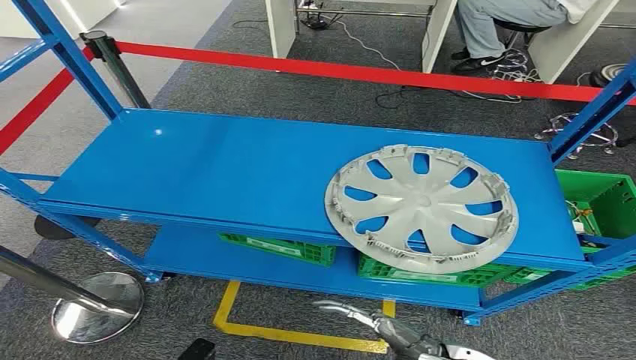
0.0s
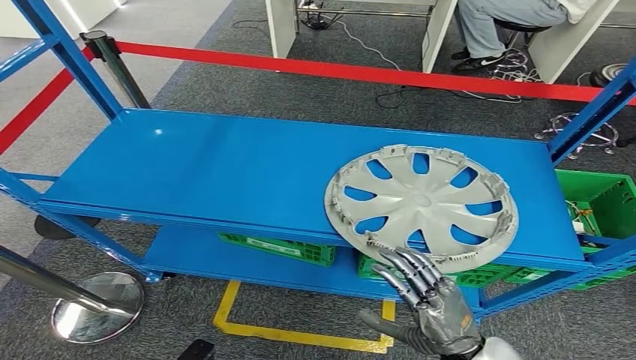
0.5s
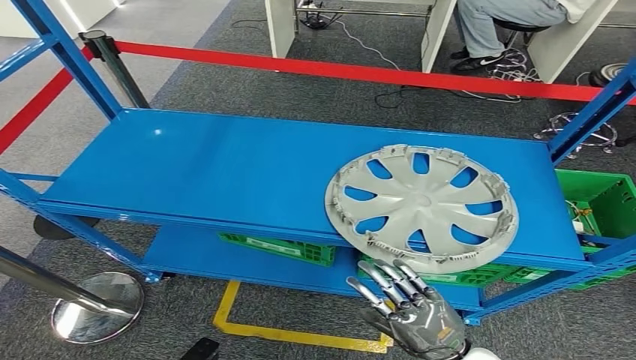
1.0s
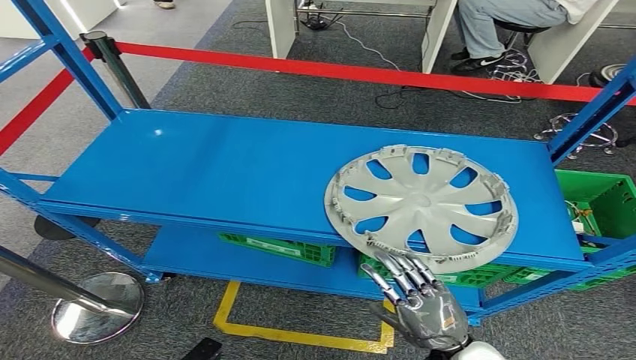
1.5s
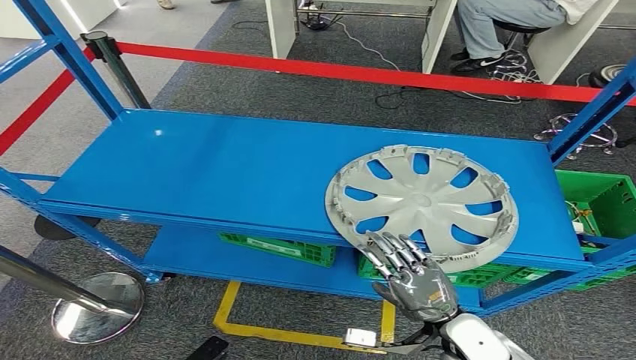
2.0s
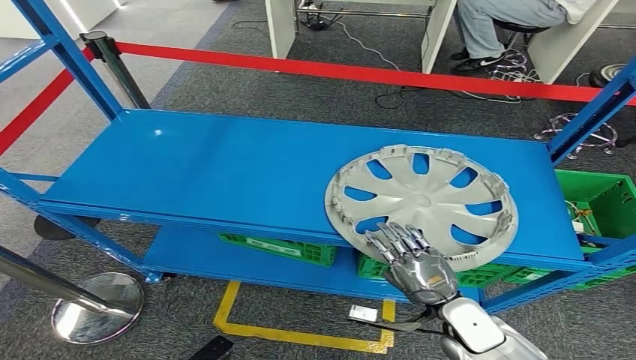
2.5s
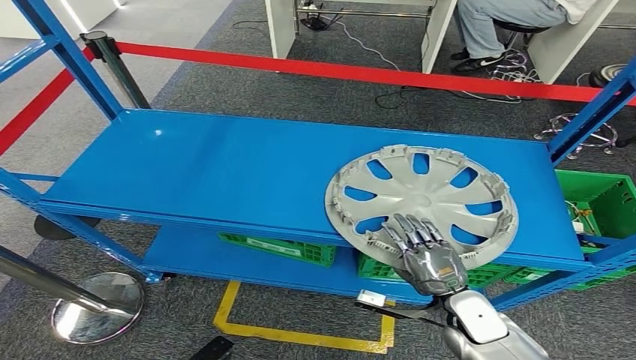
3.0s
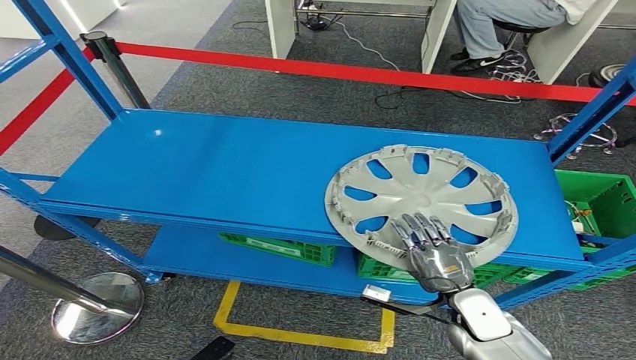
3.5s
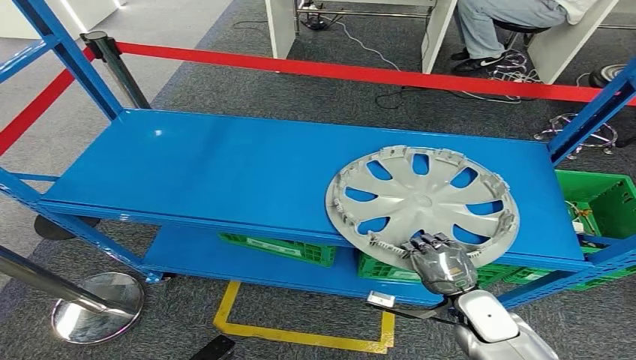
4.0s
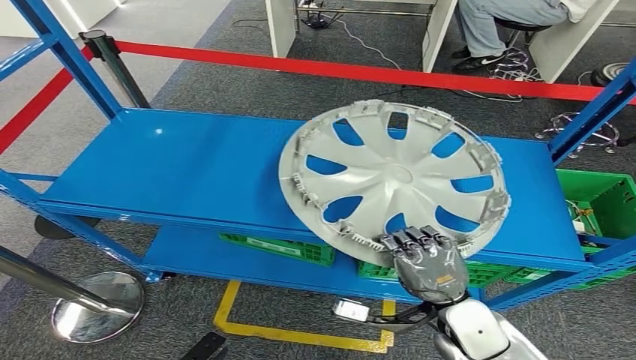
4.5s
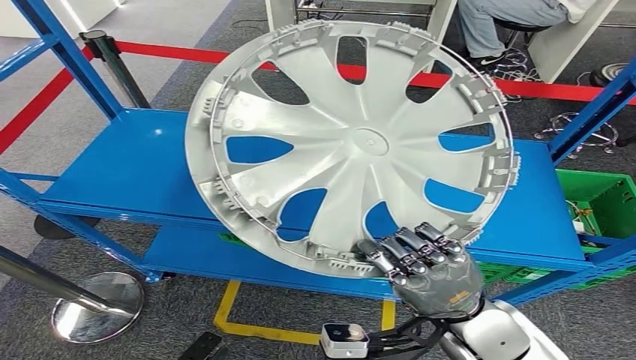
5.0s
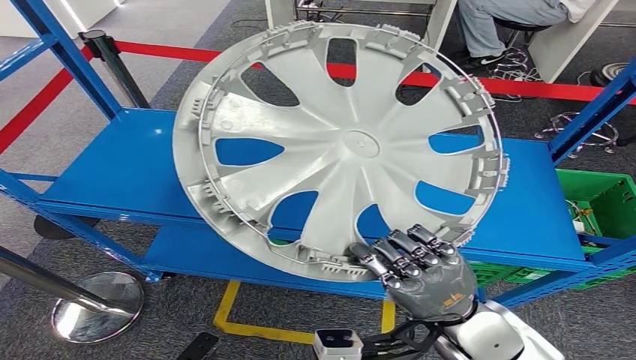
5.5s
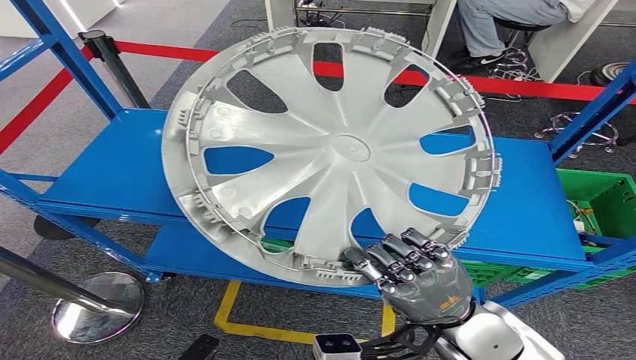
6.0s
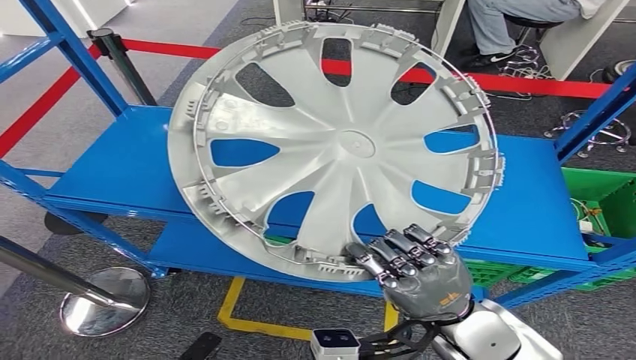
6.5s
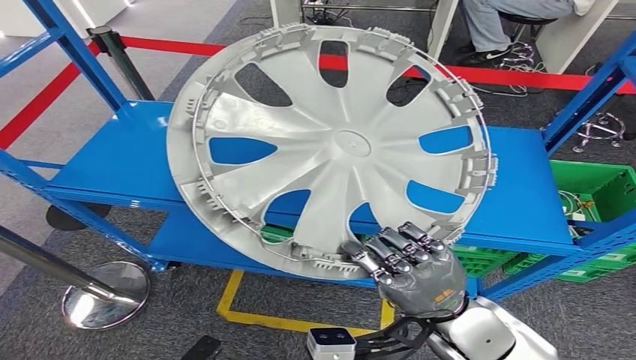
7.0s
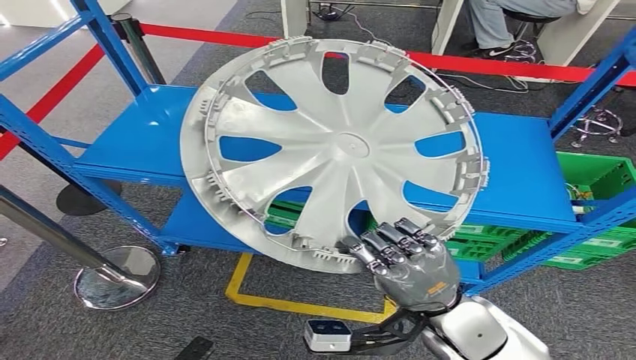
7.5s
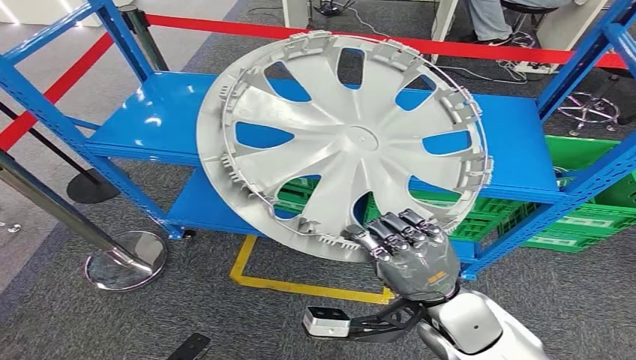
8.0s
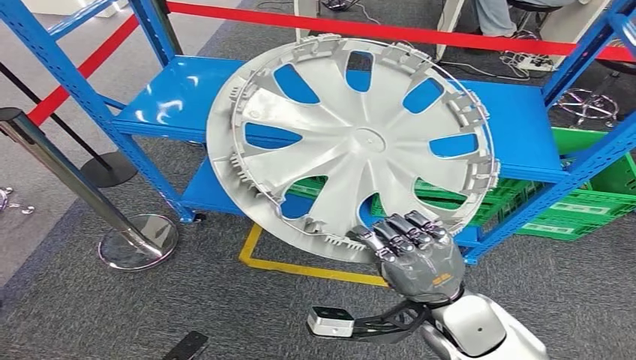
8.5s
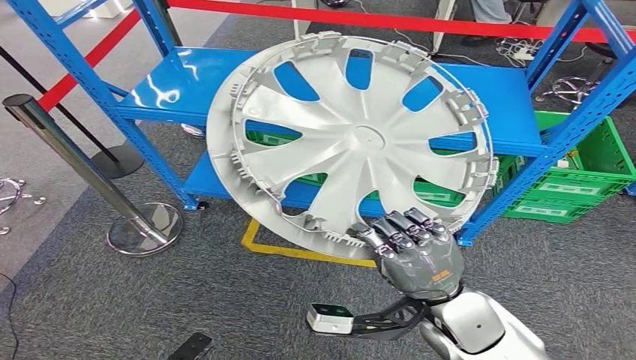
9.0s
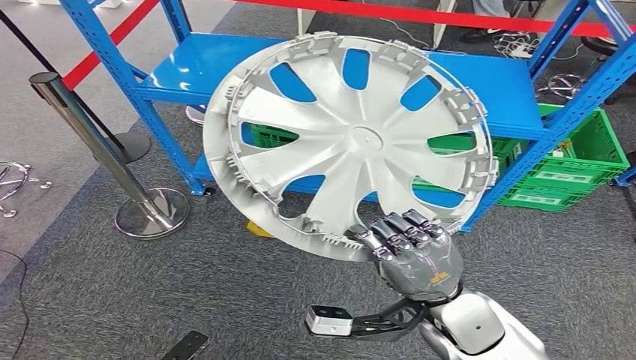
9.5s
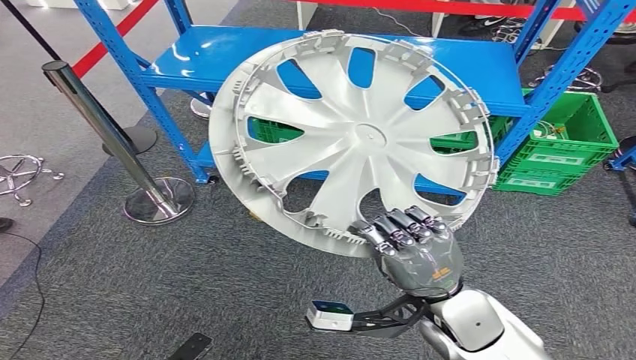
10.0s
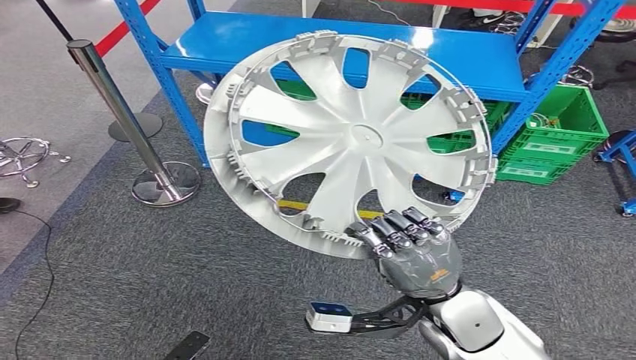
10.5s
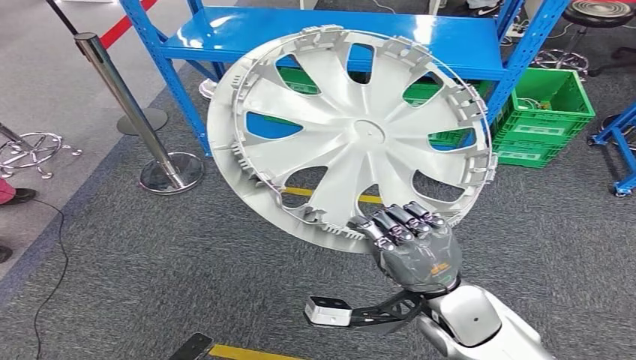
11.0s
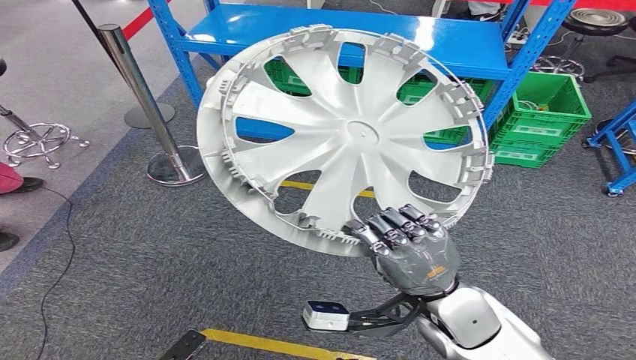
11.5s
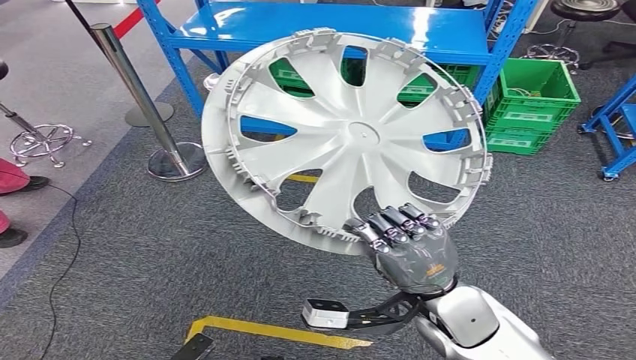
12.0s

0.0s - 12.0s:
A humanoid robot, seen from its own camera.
Step, 0.0s - 8.0s: Pick up the small component from the shelf.
2.0s - 4.0s: The right hand heads forward, covering roughly 5 cm.

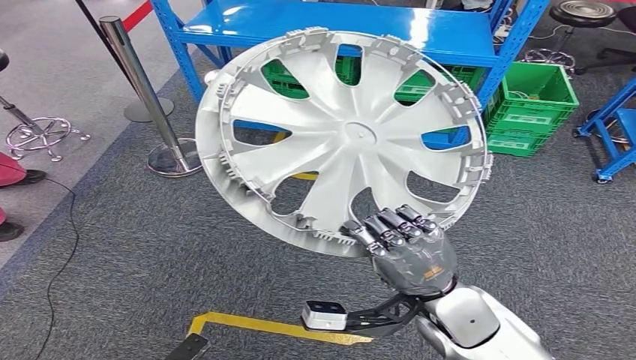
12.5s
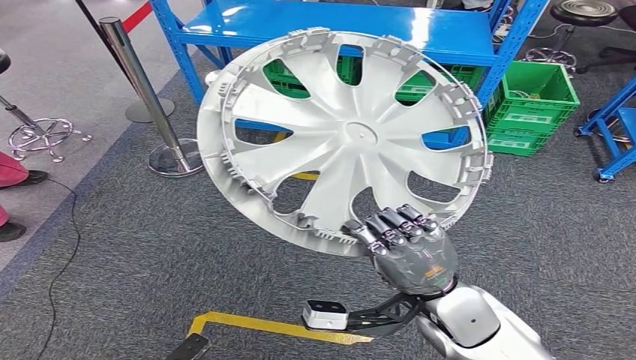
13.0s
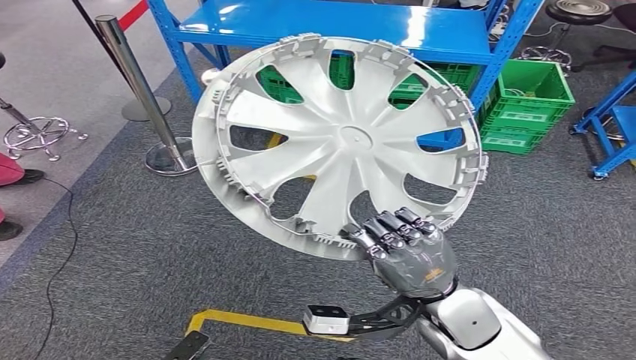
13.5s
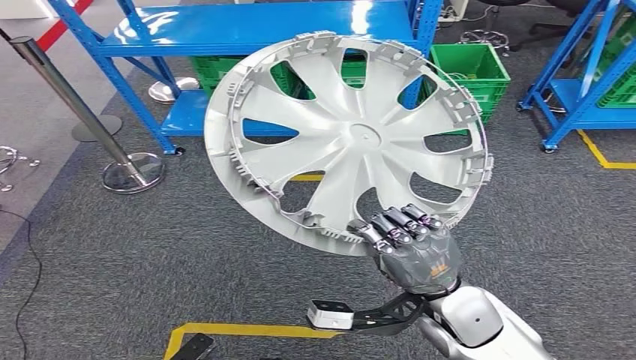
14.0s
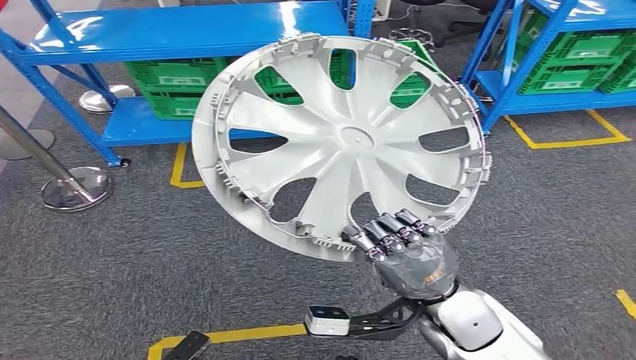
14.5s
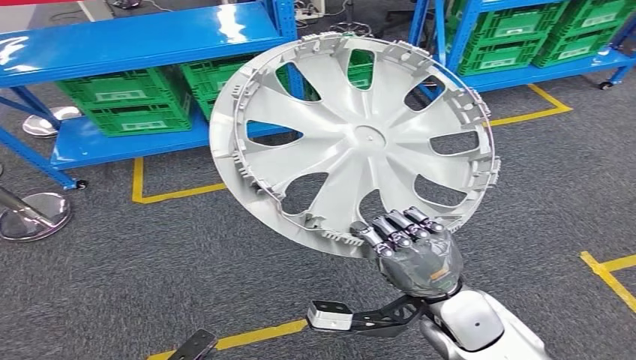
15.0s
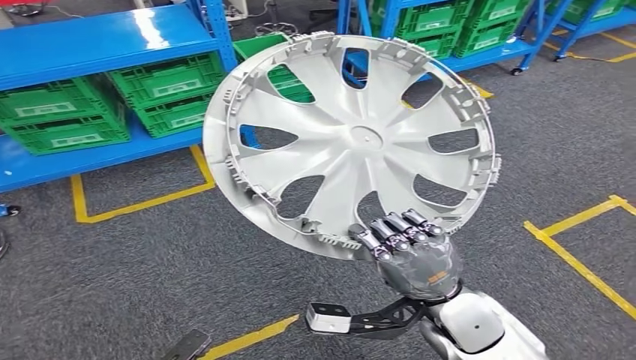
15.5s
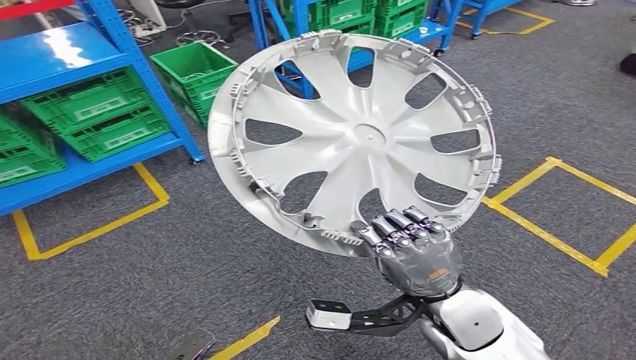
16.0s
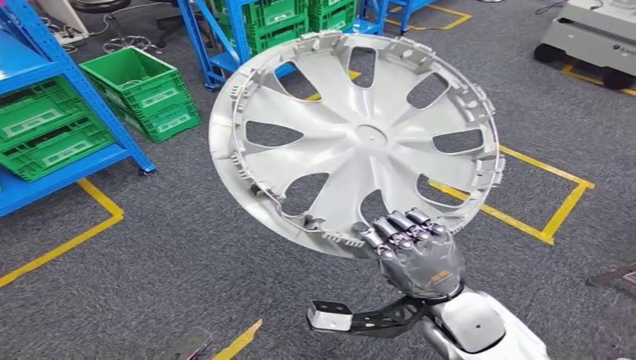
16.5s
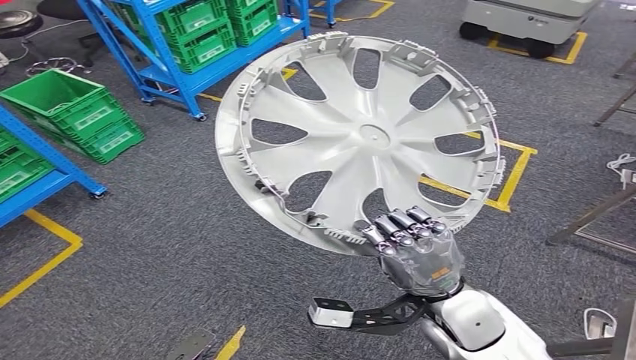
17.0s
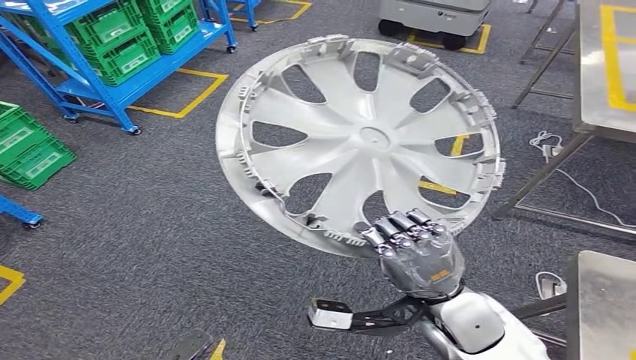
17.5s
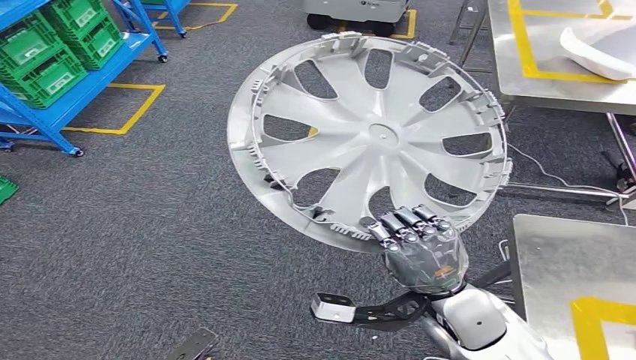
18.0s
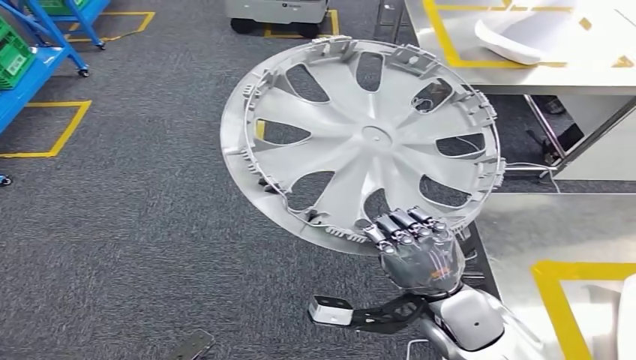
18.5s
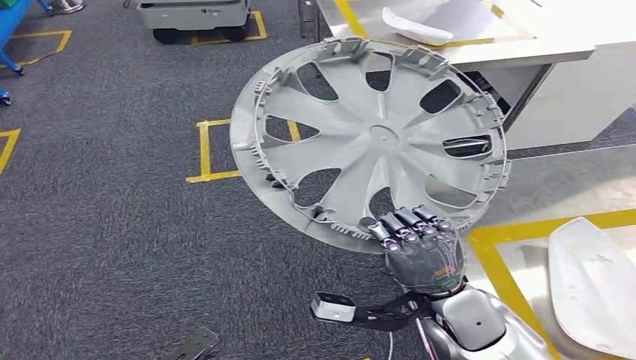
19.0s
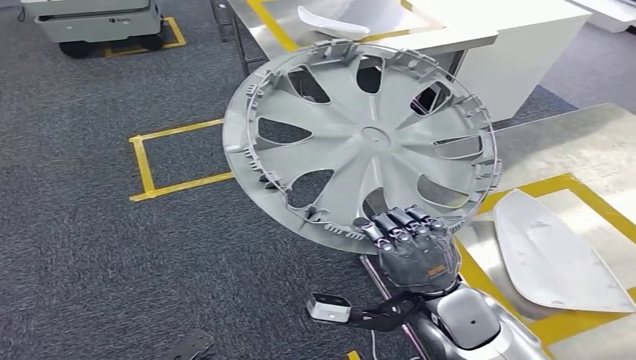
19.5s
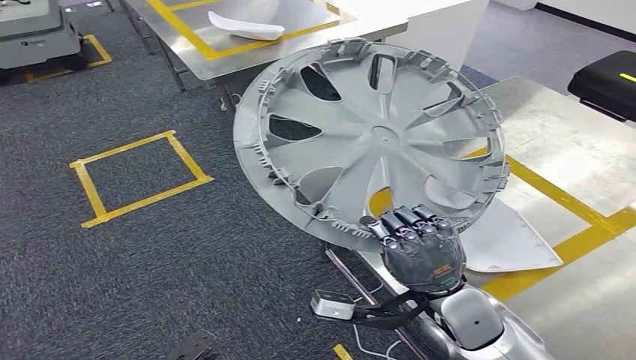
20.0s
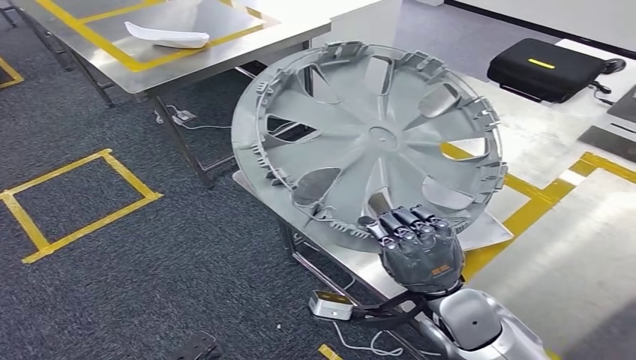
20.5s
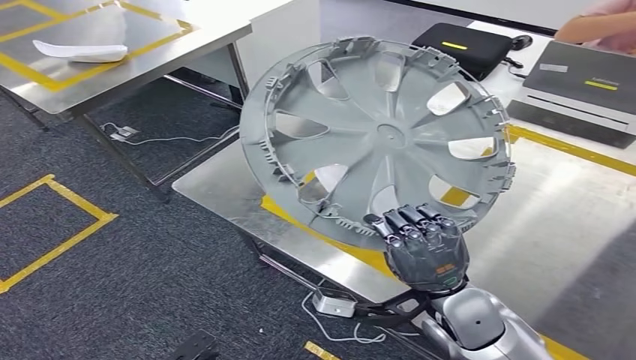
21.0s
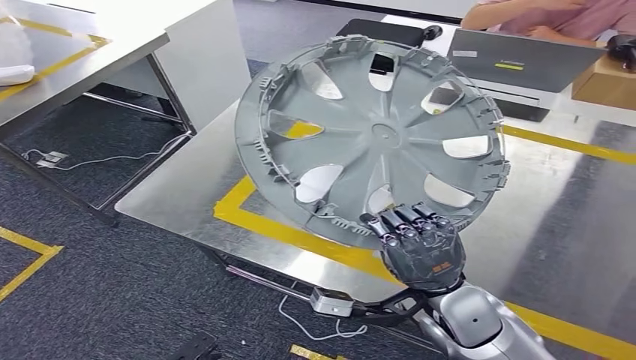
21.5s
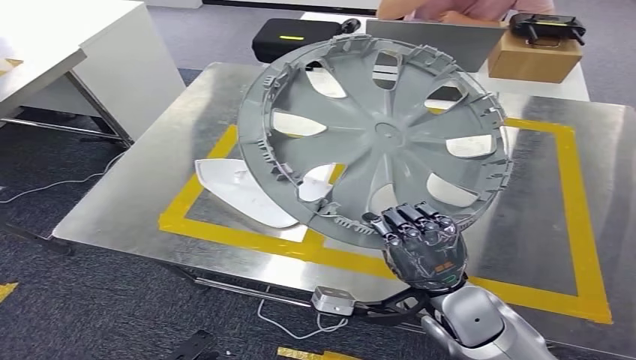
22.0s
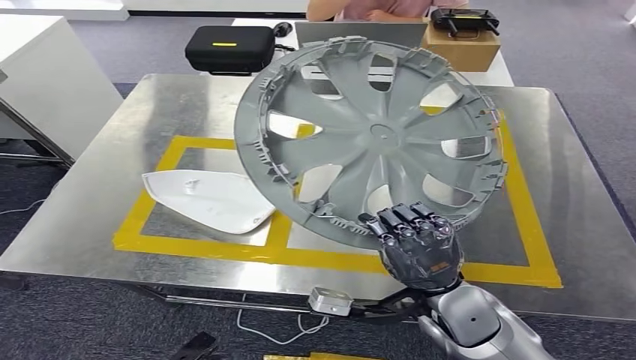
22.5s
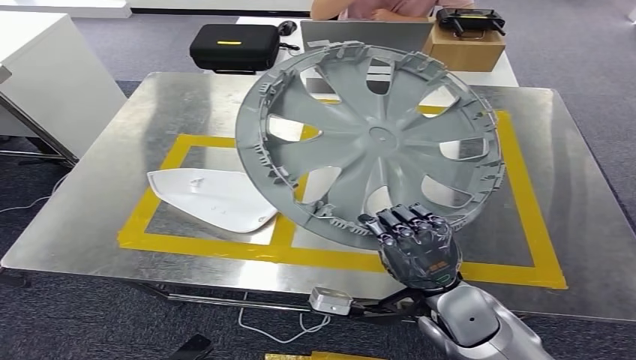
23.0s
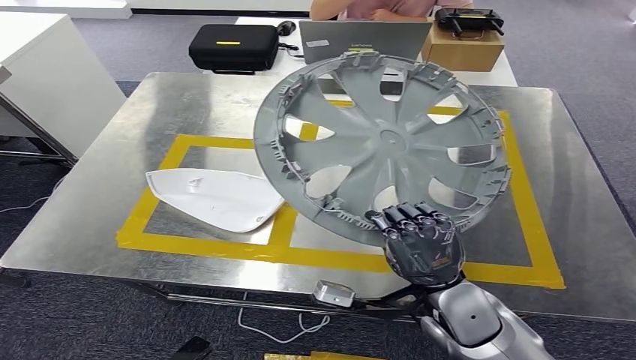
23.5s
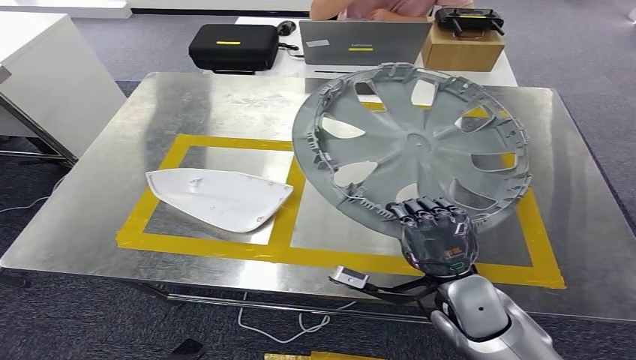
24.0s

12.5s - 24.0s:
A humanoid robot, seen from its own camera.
Step, 12.5s - 21.5s: Move the small component to the workbench.
